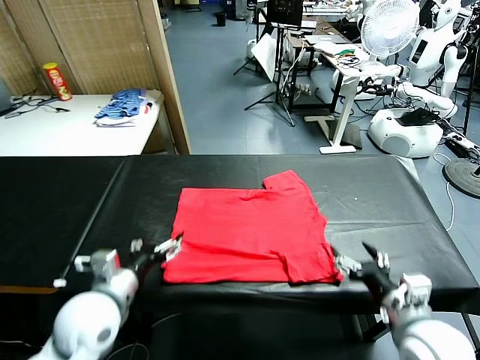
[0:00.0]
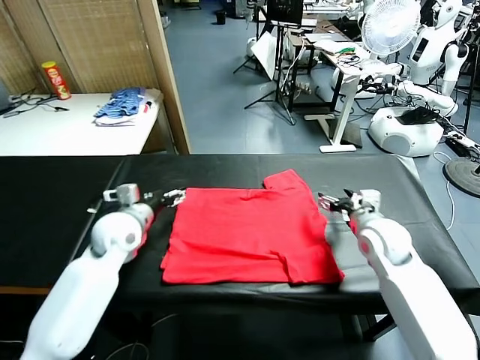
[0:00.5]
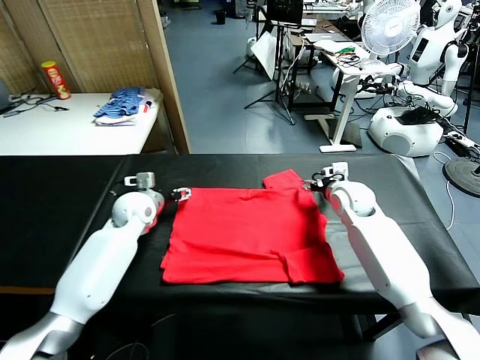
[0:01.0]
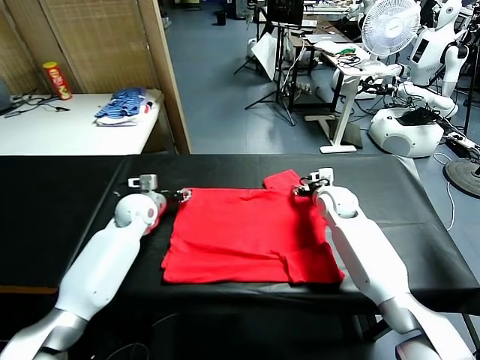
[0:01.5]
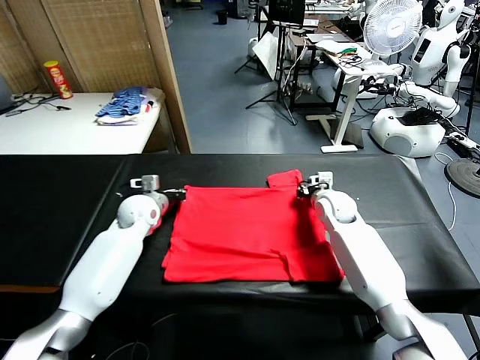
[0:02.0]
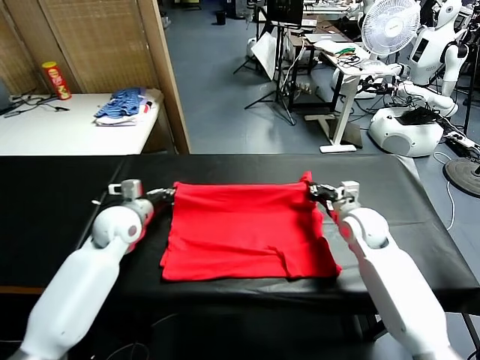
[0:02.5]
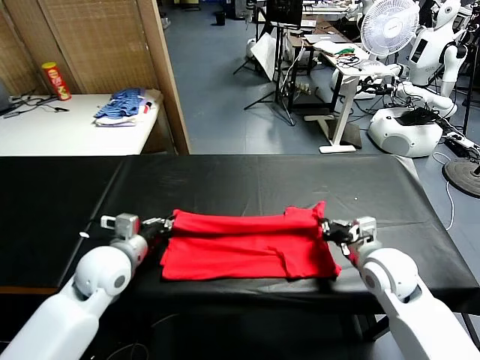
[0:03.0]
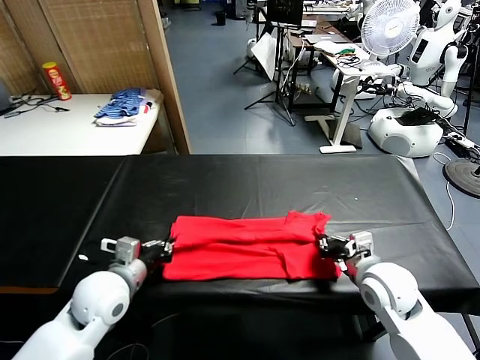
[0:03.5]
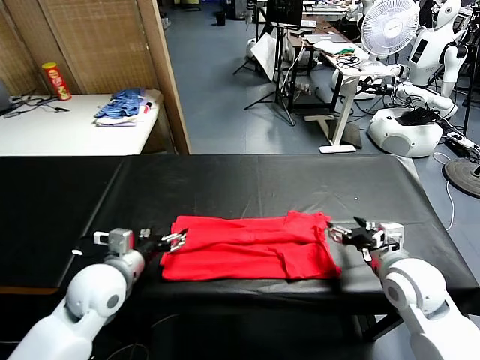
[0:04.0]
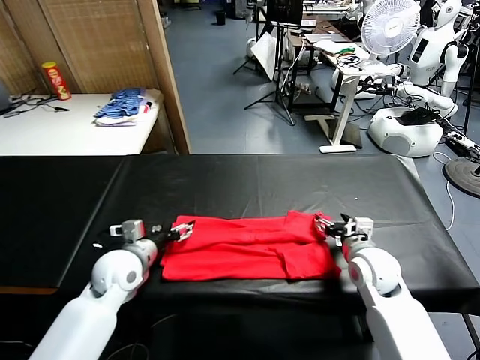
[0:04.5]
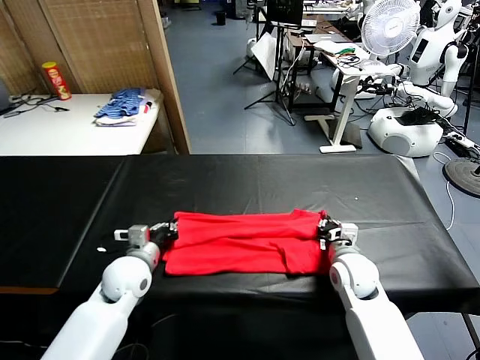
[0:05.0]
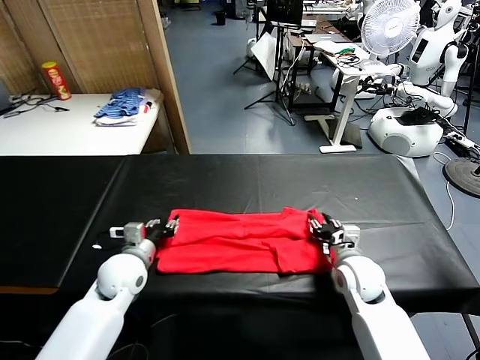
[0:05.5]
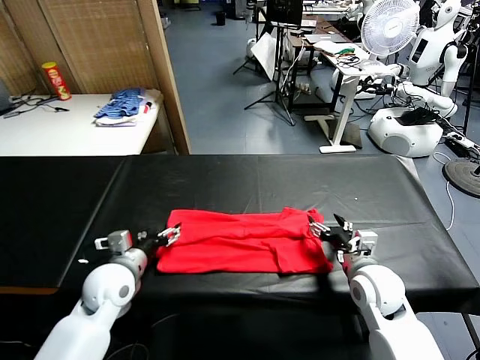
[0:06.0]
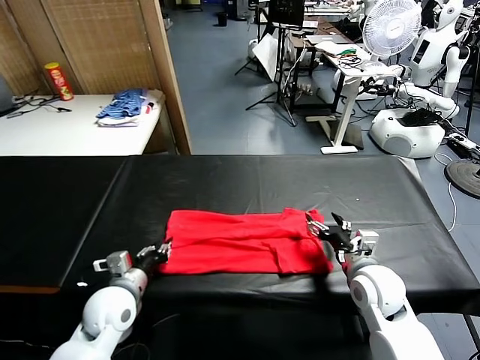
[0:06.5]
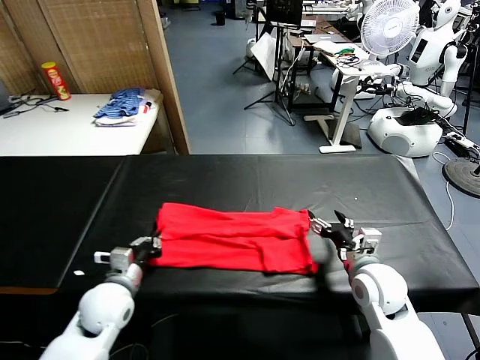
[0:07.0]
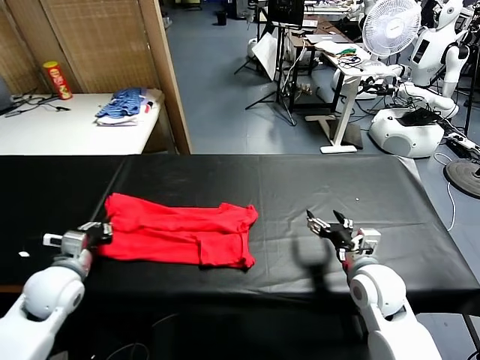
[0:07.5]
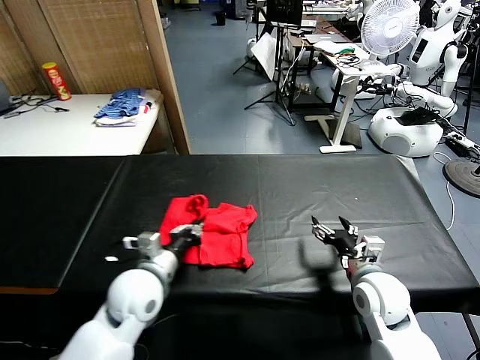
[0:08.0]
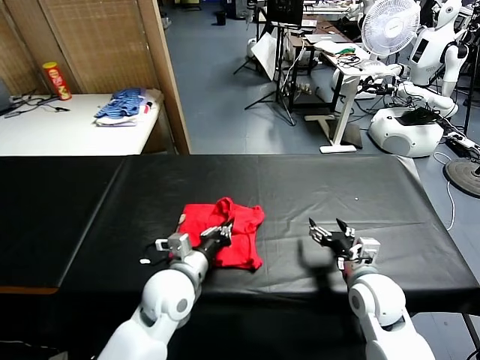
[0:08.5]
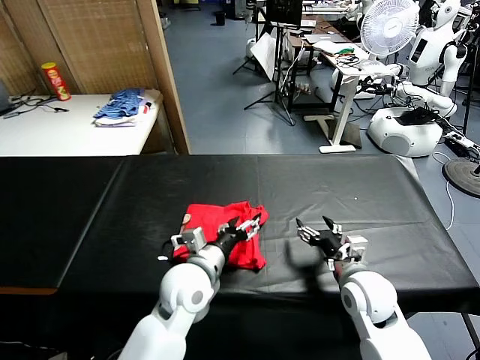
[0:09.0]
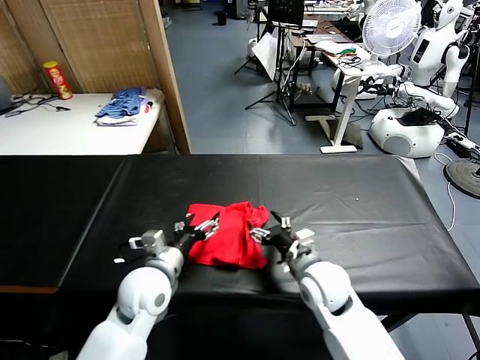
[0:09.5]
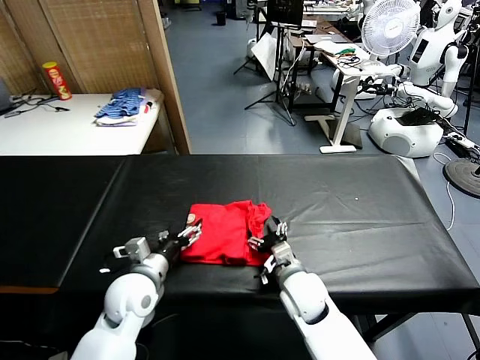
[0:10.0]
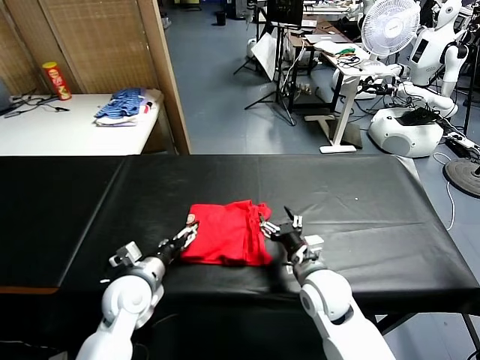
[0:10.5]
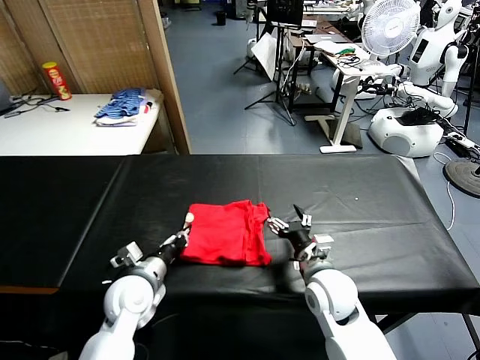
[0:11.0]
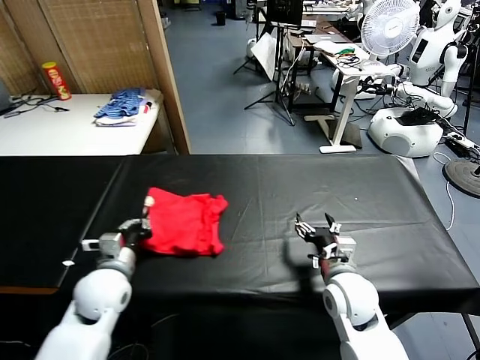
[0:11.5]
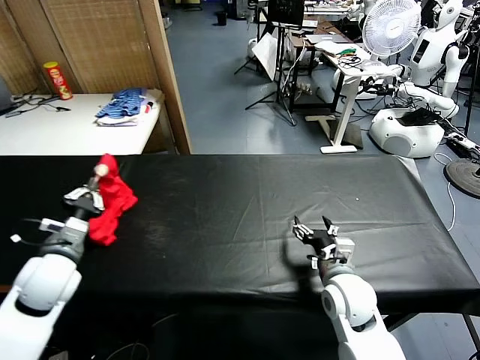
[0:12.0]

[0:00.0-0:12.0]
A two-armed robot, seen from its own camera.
Task of the whole recording: fold and organize the clothes.
Step, 0:00.0 to 0:02.0: use both grippers simultaneously to clamp the upper edge of the clothing fabric.
Step, 0:02.5 to 0:07.0: use the left gripper to clamp the left edge of the fabric.
Step, 0:07.5 to 0:09.0: use the left gripper to drag the left edge of the fabric to the left and folds it over the right edge.
0:00.0 to 0:02.0: Both grippers move forward, some 25 cm. The left gripper closes up. Meanwhile the right gripper closes up.
0:02.0 to 0:04.0: The two grippers go about 20 cm backward. The right gripper opens; the left gripper opens.
0:04.0 to 0:06.0: The right gripper closes, then reopens. The left gripper heads downward, covering some 5 cm, and closes and opens again.
0:06.0 to 0:08.0: The left gripper travels to the right by some 5 cm, and closes up.
0:08.0 to 0:10.0: The right gripper travels to the left by approximately 15 cm, while the left gripper goes to the right and returns, about 10 cm each way, and opens up.
0:10.0 to 0:12.0: The left gripper heads to the left and upward, covering approximately 15 cm, and closes up; the right gripper heads to the right, covering roughly 10 cm.

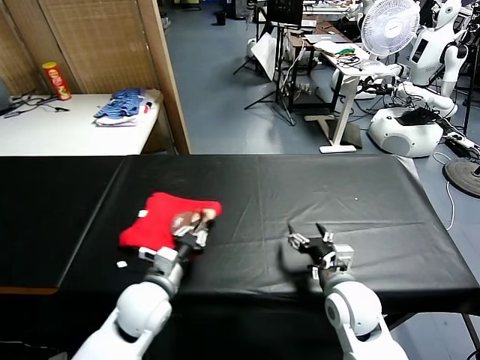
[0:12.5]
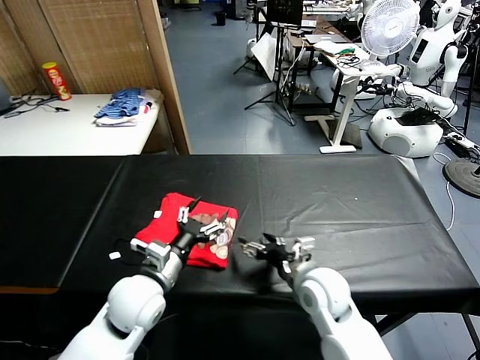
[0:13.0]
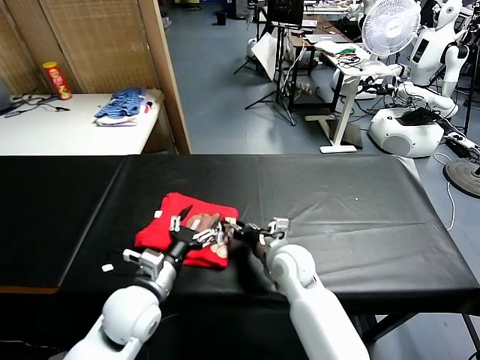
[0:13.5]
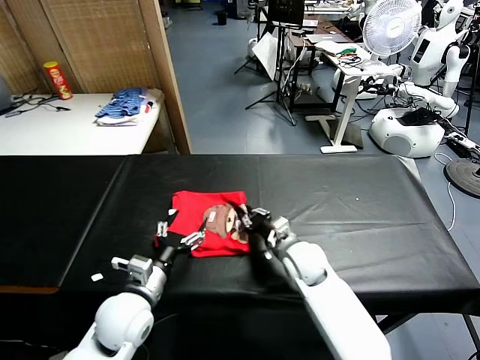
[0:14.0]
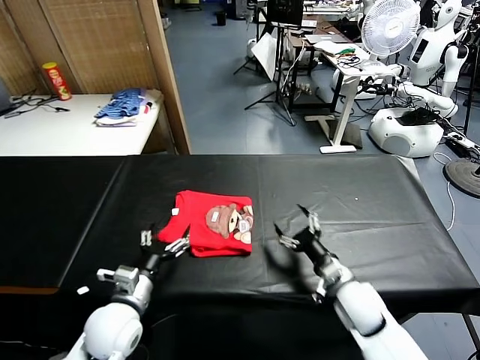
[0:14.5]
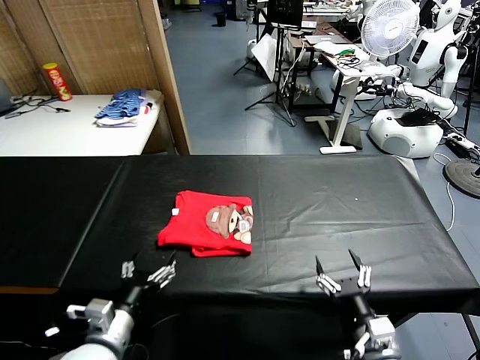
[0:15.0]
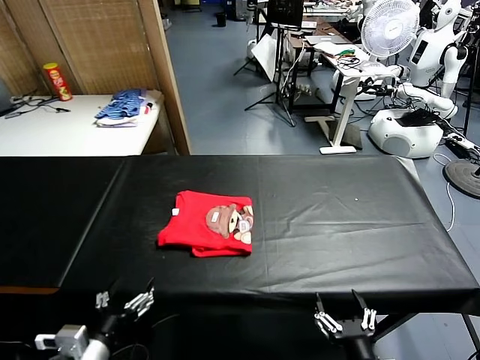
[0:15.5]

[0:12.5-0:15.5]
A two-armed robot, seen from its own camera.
Task of the whole recording: fold and organize the clothes.
Step, 0:13.0 to 0:14.0: Drag the clothes to the center of the table.
0:12.5 to 0:14.0: The left gripper opens up; the right gripper travels forward and to the left by approximately 15 cm, and closes up.
0:14.0 to 0:15.5: The left gripper is displaced backward by some 15 cm. The right gripper is displaced backward by roughly 30 cm, and opens its fingers.

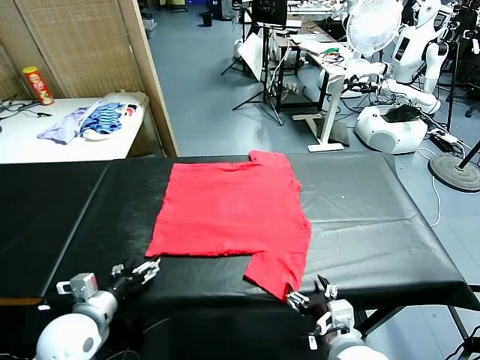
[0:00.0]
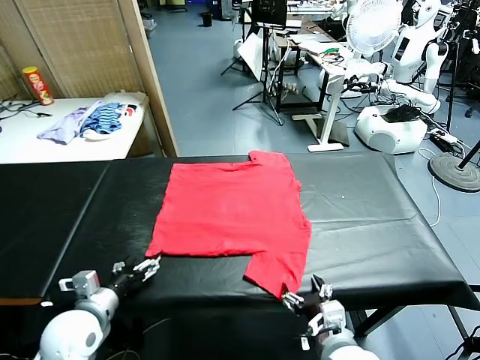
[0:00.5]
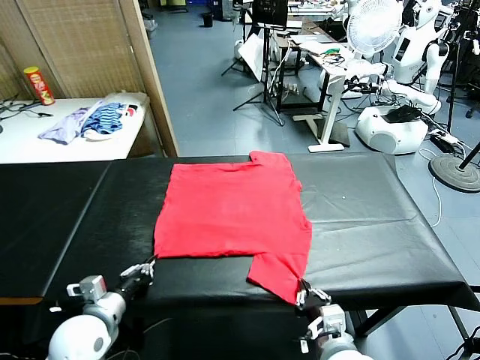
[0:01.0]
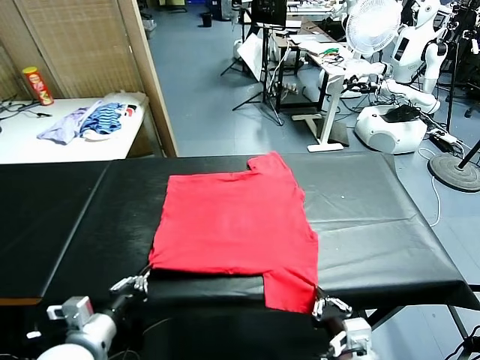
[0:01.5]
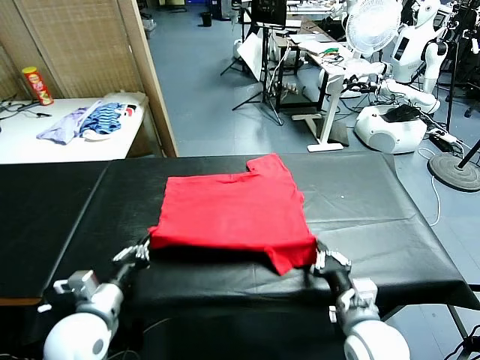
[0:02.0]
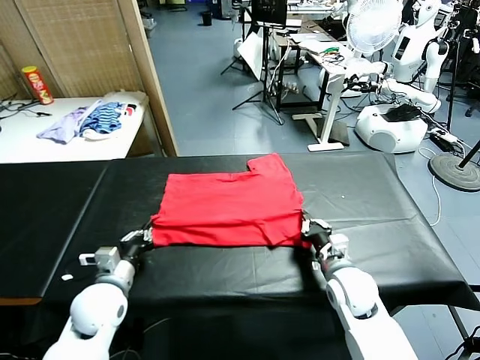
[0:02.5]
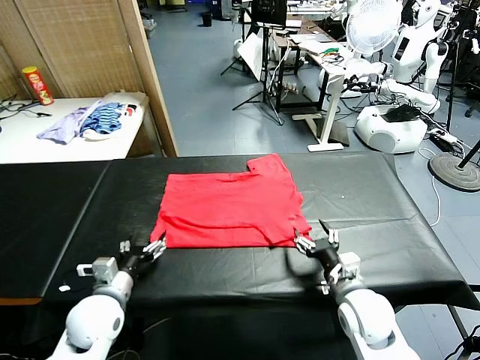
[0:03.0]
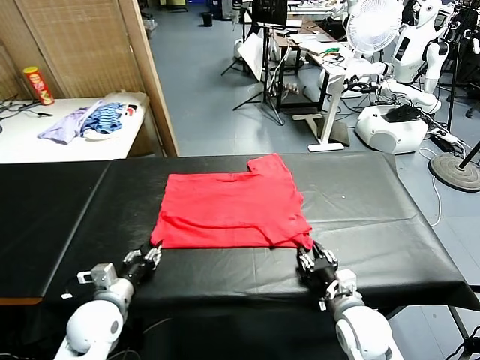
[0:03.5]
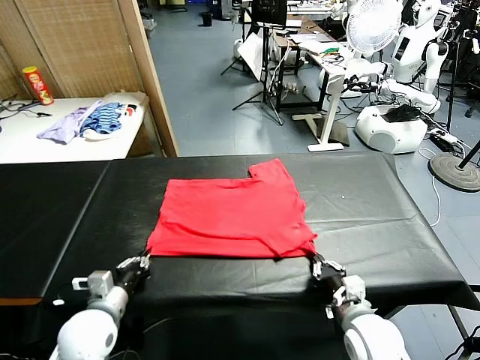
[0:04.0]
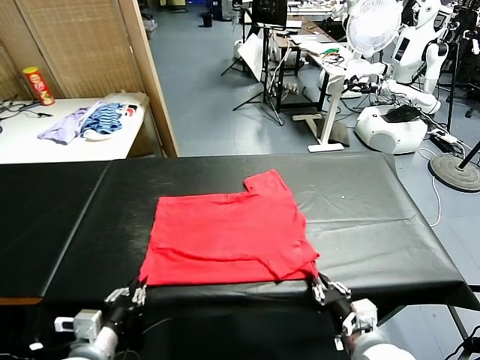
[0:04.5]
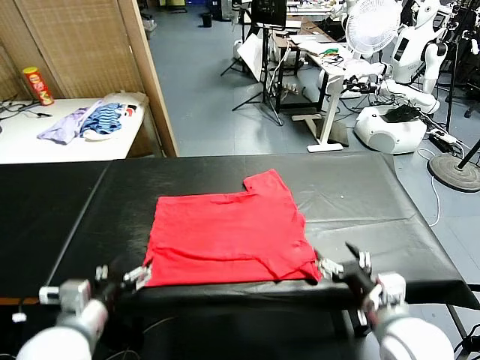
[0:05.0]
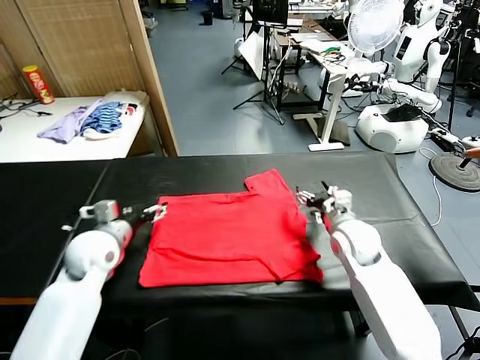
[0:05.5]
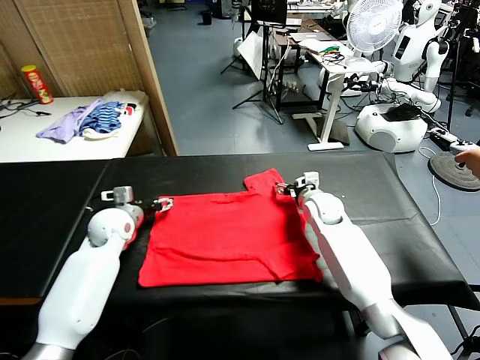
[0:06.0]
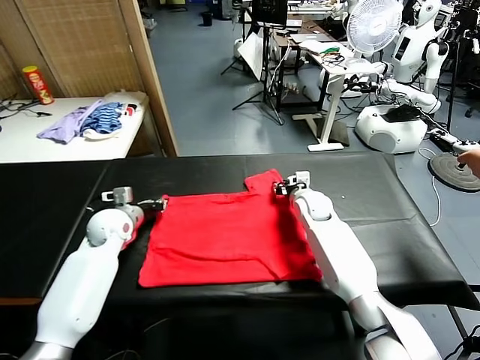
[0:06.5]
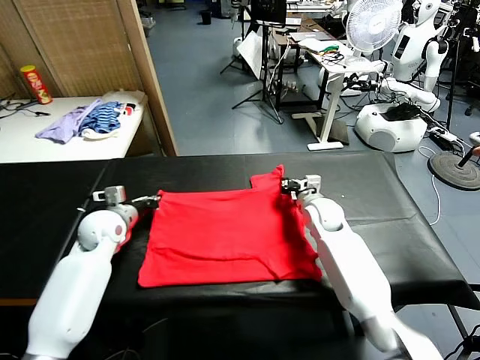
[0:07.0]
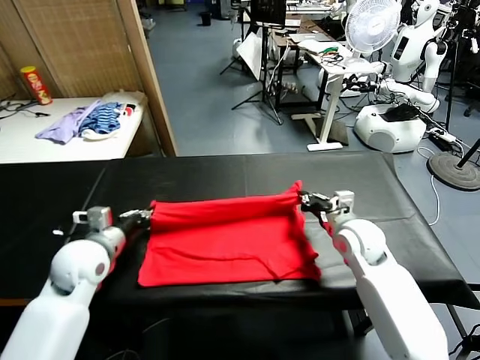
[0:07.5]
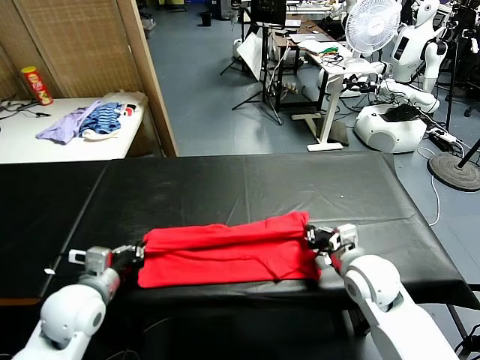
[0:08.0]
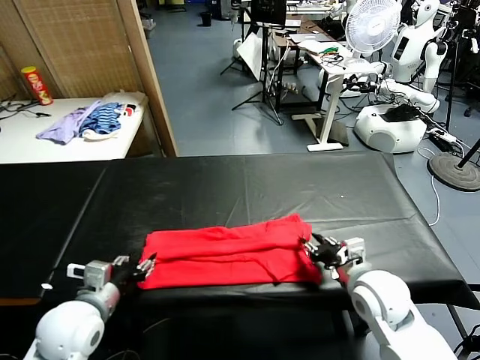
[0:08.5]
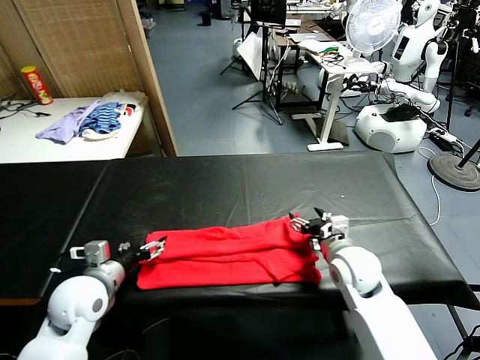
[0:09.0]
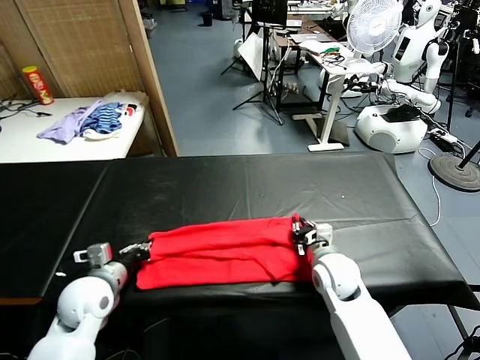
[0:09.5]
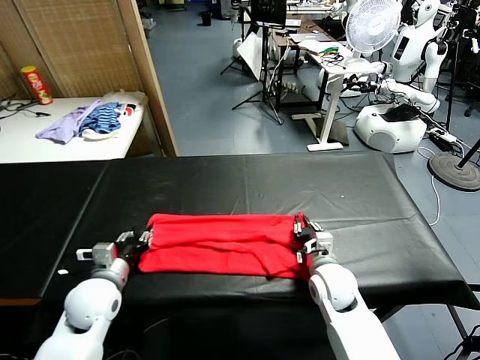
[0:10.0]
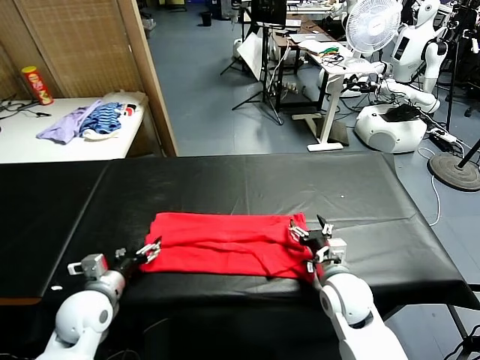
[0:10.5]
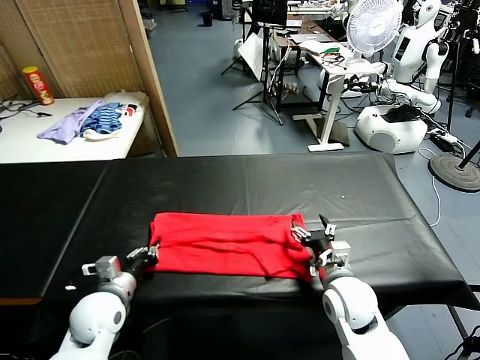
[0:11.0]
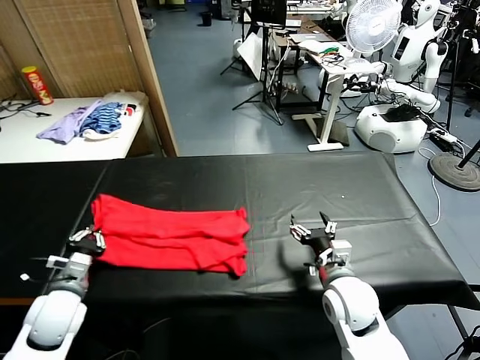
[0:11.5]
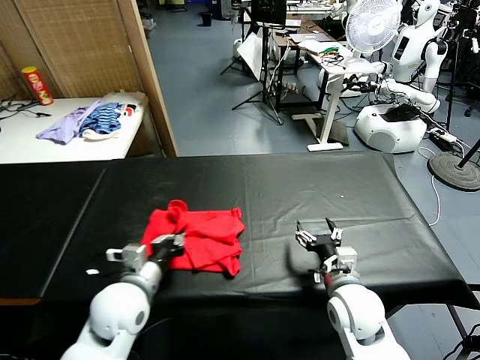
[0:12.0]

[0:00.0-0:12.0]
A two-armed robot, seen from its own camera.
Task of the whole recording: fold and organize the clothes.
Step, 0:00.0 to 0:01.0: use both grippers simultaneously to clamp the lower edge of the clothing fabric.
Step, 0:01.5 to 0:02.5: use both grippers to drag the lower edge of the fabric forward and fold it over the upper edge.
Step, 0:03.0 to 0:04.5: Drag the clothes downward with both gripper.
Step, 0:05.0 to 0:06.0: use both grippers simultaneously to clamp the upper edge of the clothing fabric.
Step, 0:06.5 to 0:08.5: use both grippers to drag the upper edge of the fabric backward and fold it over the lower edge.
Step, 0:09.0 to 0:11.0: use the left gripper to clamp the left edge of the fabric.
0:02.0 to 0:04.0: The right gripper heads backward, covering some 10 cm, and opens and closes again. The left gripper opens, then closes once more.
0:04.0 to 0:06.0: Both grippers move forward, roughly 30 cm. The left gripper opens its fingers, while the right gripper opens up.
0:06.0 to 0:08.0: Both grippers travel together backward, approximately 20 cm. The left gripper closes. The right gripper closes.
0:08.0 to 0:10.0: The left gripper changes place by some 5 cm, and opens; the right gripper is displaced downward by some 5 cm, and opens.
0:10.0 to 0:12.0: The right gripper goes approximately 5 cm backward, and opens. The left gripper shifts about 10 cm to the right, and closes.
